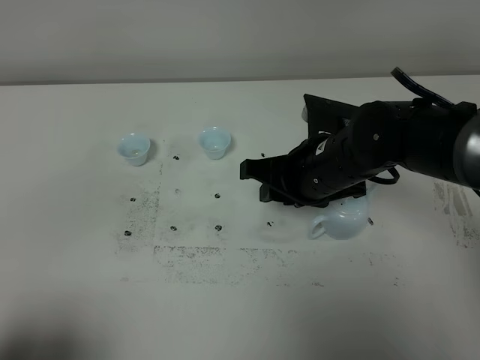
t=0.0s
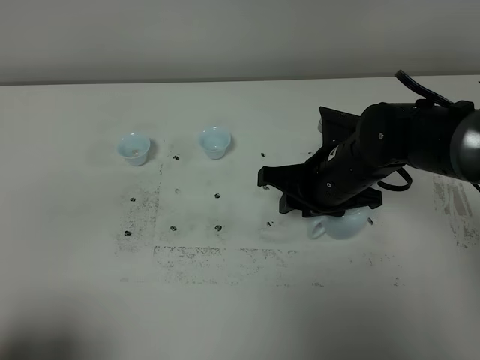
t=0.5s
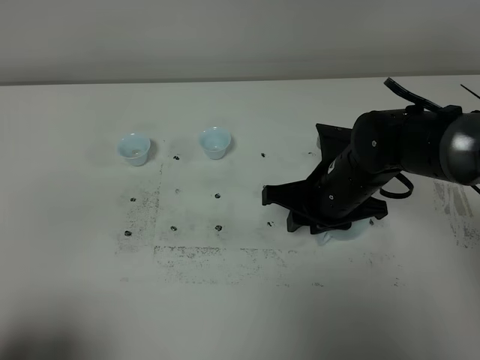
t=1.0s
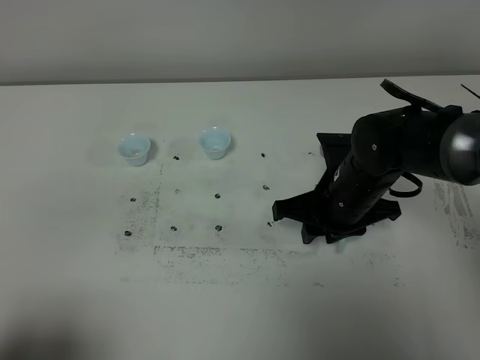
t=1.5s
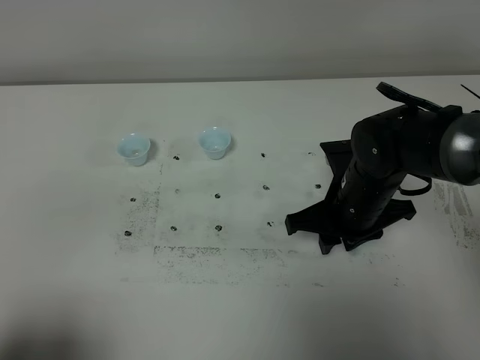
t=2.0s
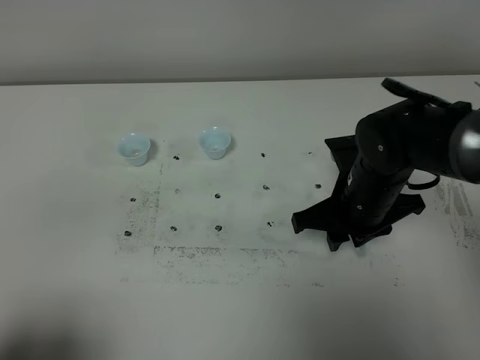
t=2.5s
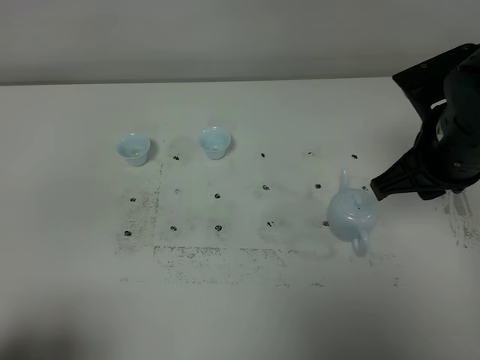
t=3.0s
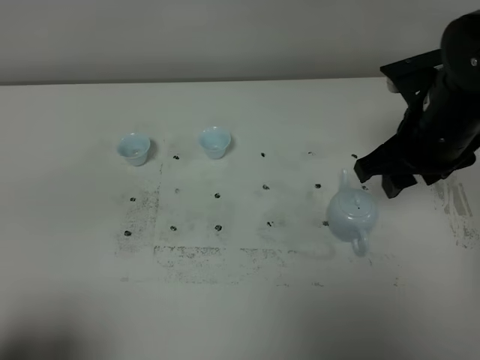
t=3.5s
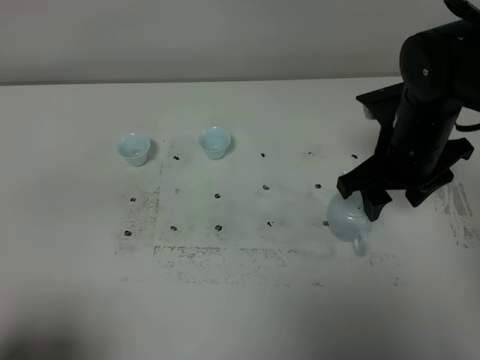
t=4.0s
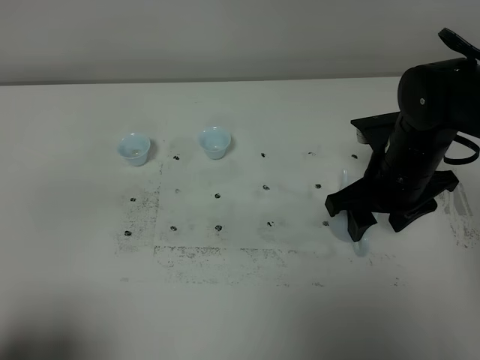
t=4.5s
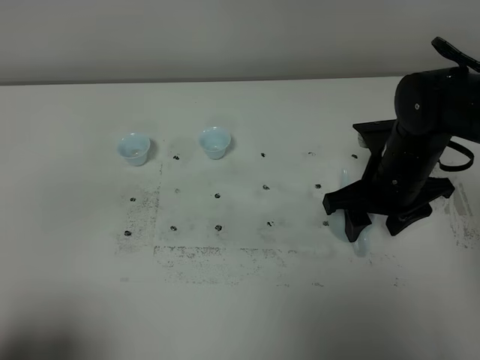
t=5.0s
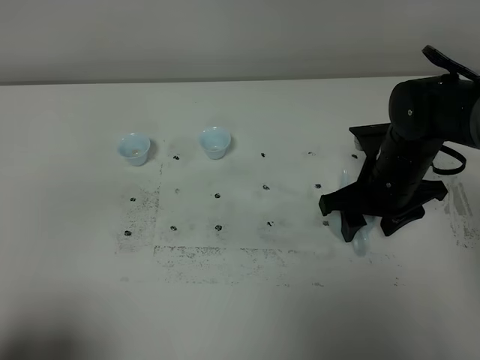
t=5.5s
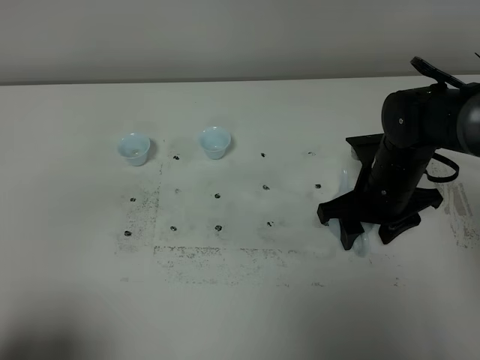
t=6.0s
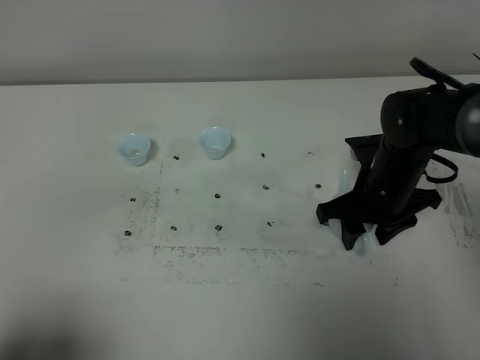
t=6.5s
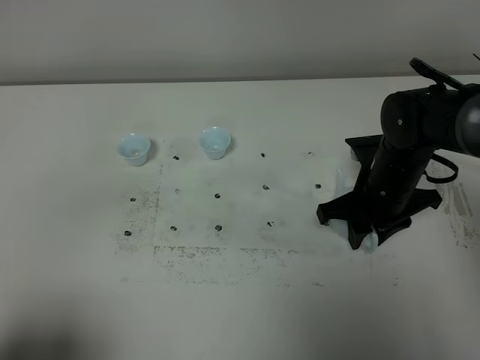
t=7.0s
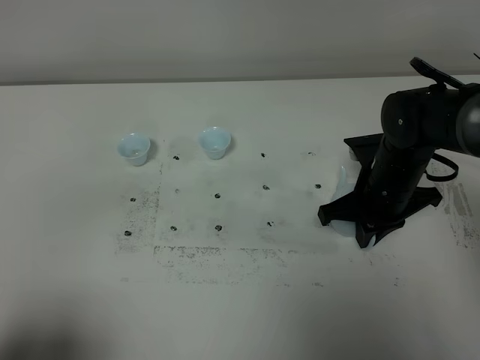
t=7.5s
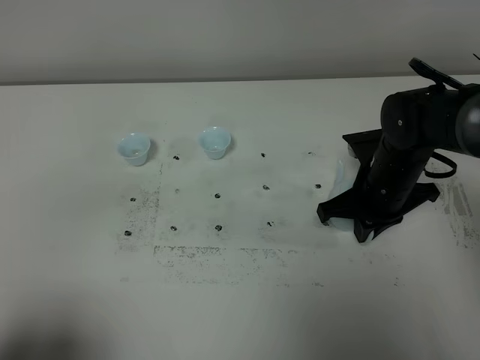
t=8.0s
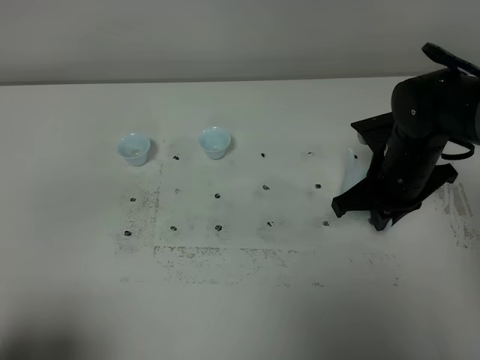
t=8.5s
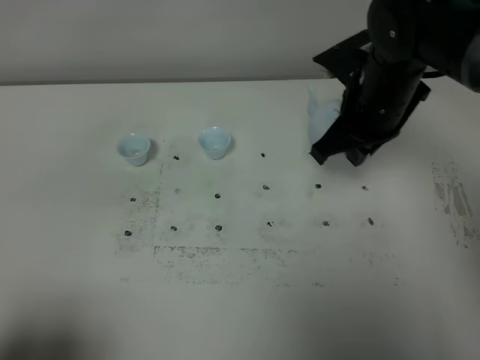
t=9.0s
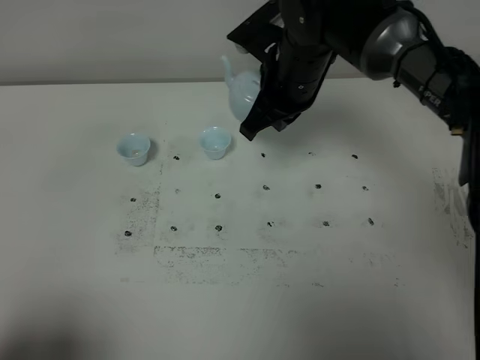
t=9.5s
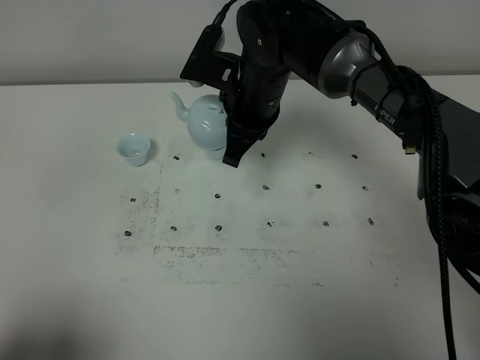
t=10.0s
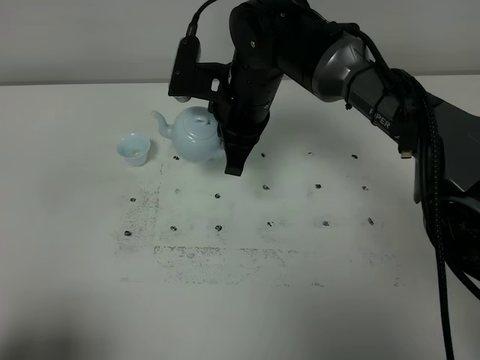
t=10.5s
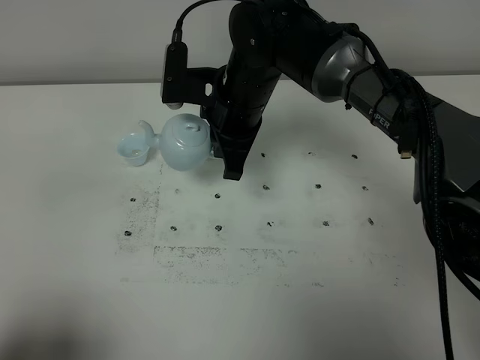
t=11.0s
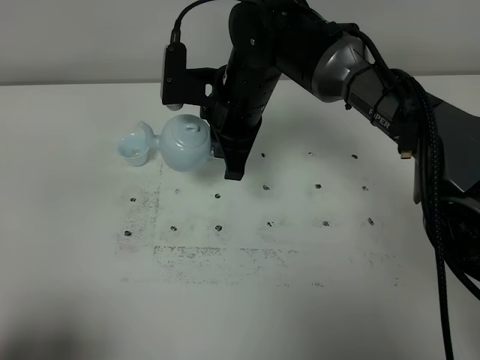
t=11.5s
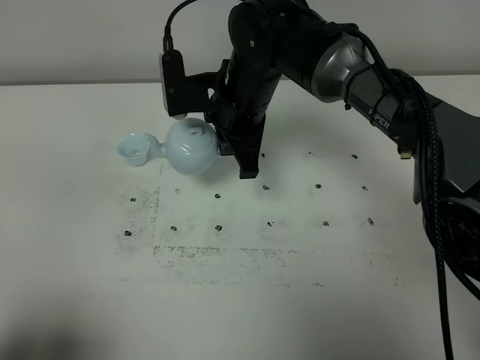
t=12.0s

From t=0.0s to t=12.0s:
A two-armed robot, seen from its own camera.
Task of the whole recording: grasp the blue porcelain teapot and pour the tea into the two blue porcelain teacups one by one, put the blue porcelain teapot back in its original place.
Step, from t=0.0s to t=8.0s: Pick up the teapot with the right gripper.
From t=0.0s to t=2.0s: The right gripper ends up some 5 cm from where it was.
From t=2.0s to t=4.0s: The right gripper heads upward and to the right, covering roughly 10 cm, and opens its fingers.
From t=4.0s to t=6.0s: The right gripper shifts roughly 10 cm downward.
From t=6.0s to t=8.0s: The right gripper closes.
From t=8.0s to t=10.0s: The right gripper goes roughly 20 cm to the left, upward and forward.

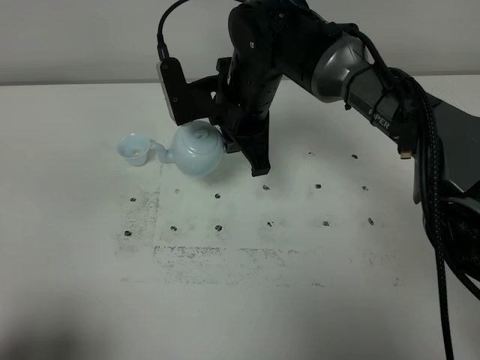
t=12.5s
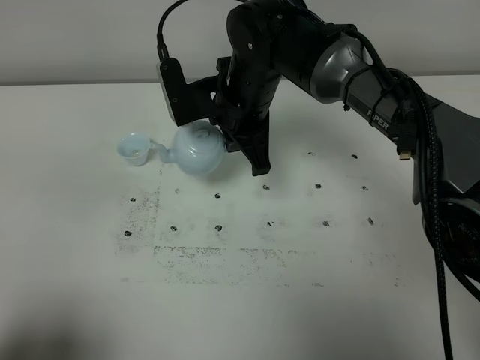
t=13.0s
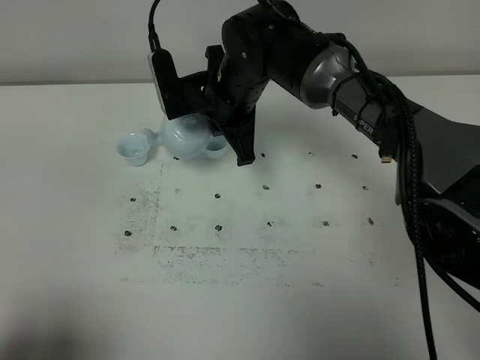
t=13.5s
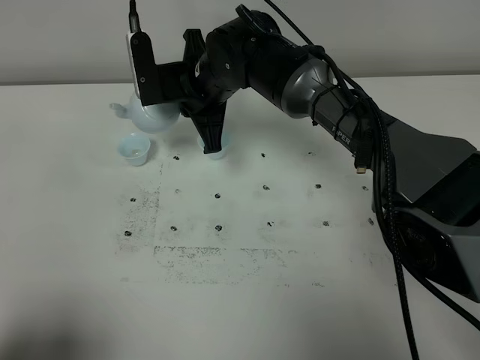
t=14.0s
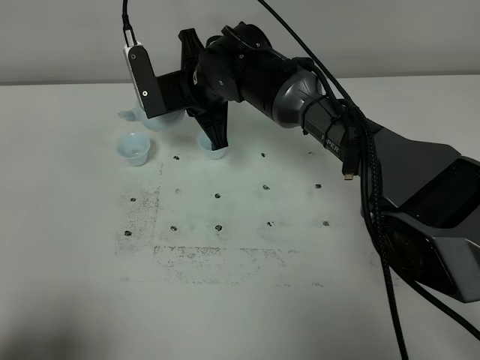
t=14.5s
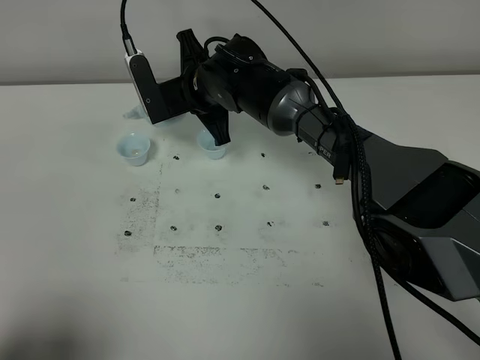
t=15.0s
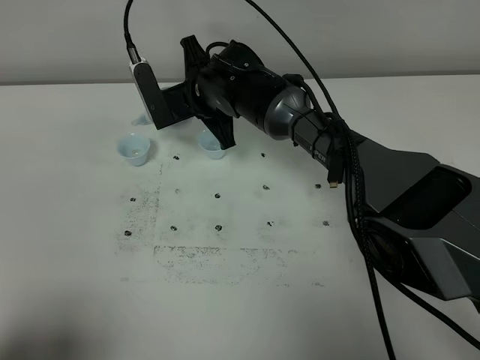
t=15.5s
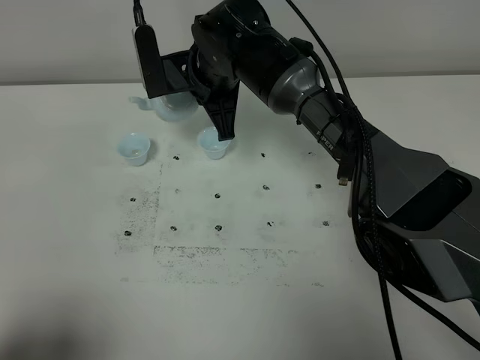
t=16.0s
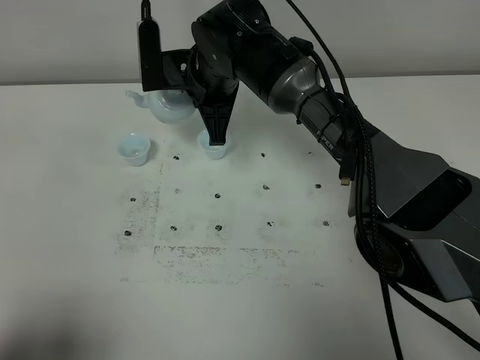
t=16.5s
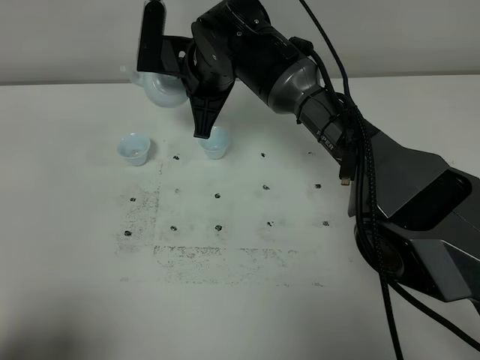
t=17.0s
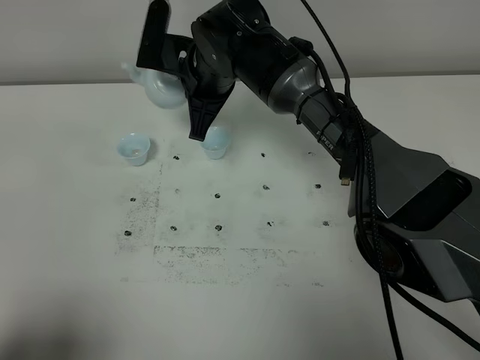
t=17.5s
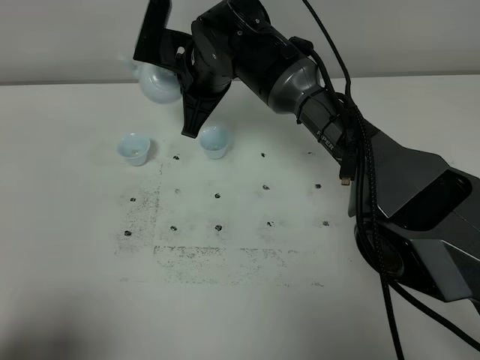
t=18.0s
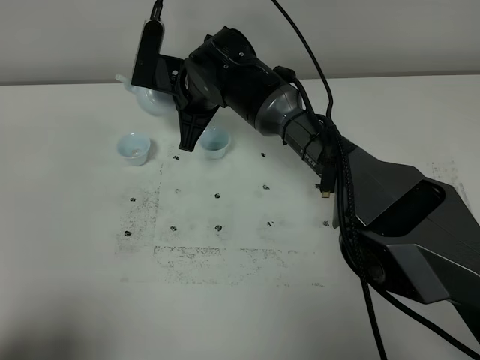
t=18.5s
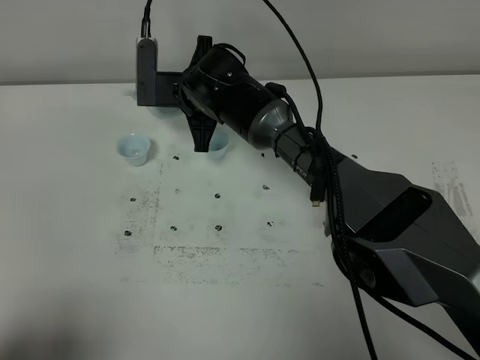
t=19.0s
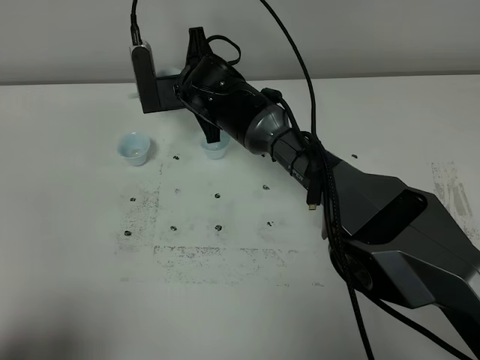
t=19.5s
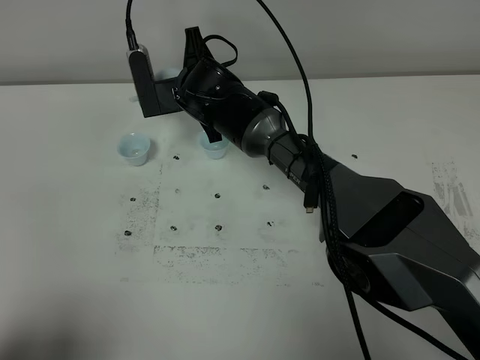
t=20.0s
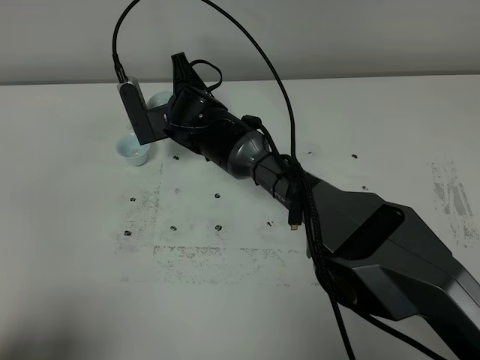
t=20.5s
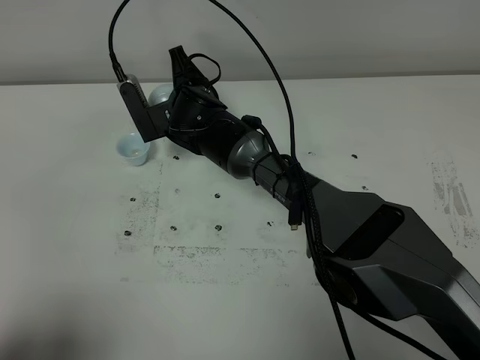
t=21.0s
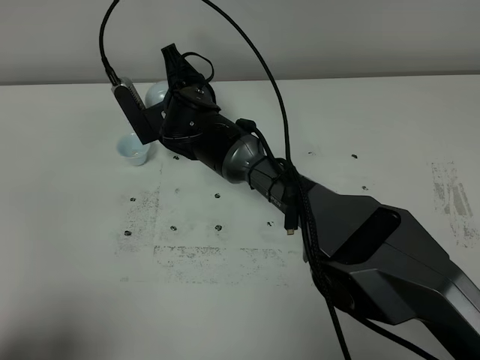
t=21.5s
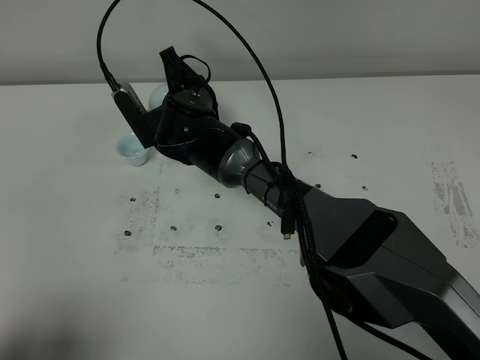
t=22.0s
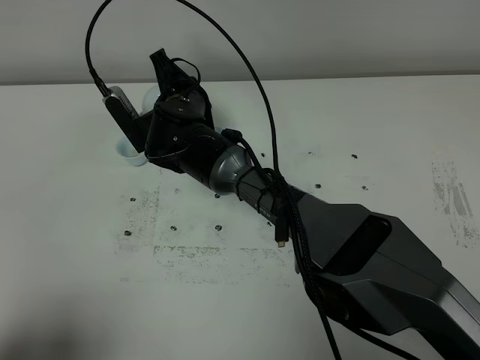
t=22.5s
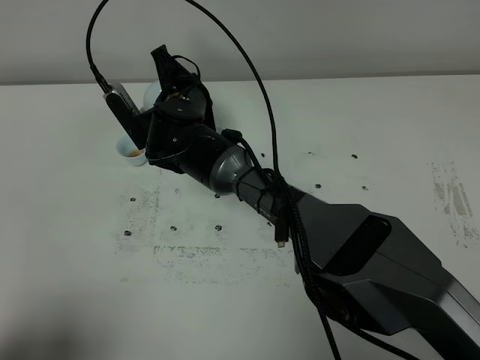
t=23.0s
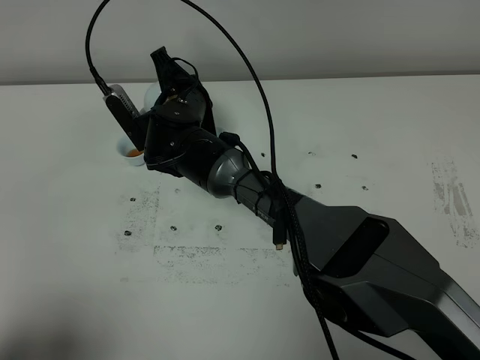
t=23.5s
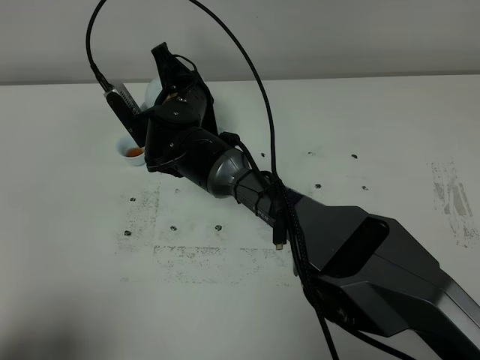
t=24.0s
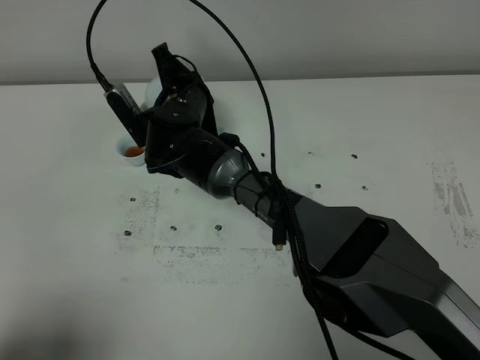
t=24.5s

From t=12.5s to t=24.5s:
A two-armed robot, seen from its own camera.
Task of the whole recording: grasp the blue porcelain teapot and pour the tea into the two blue porcelain teacups one by one, put the blue porcelain teapot back in its original place.
From t=12.5s to t=14.5s: The right gripper changes place by some 5 cm.
From t=14.5s to t=16.5s: The grippers move only a little.
From t=18.5s to t=20.5s: The right gripper goes roughly 5 cm downward.
From t=20.5s to t=24.5s: There are only small adjustments of the grippers.

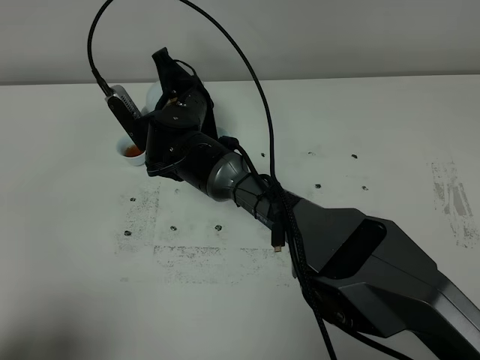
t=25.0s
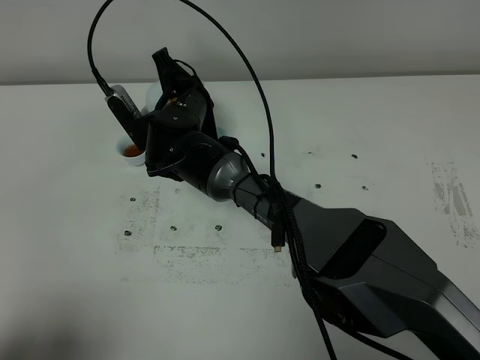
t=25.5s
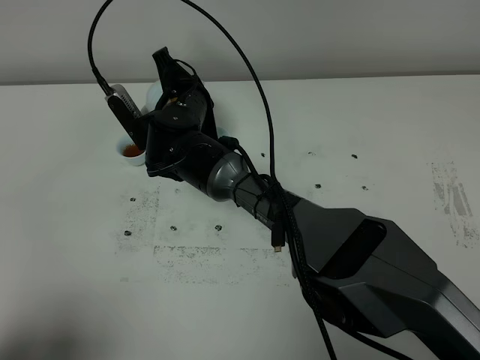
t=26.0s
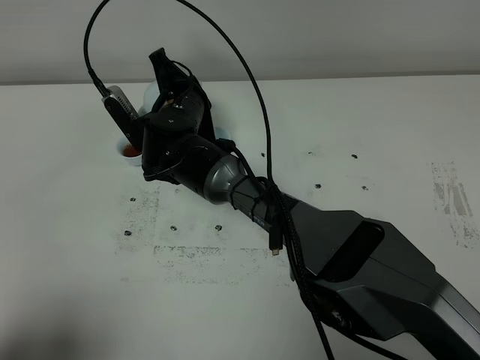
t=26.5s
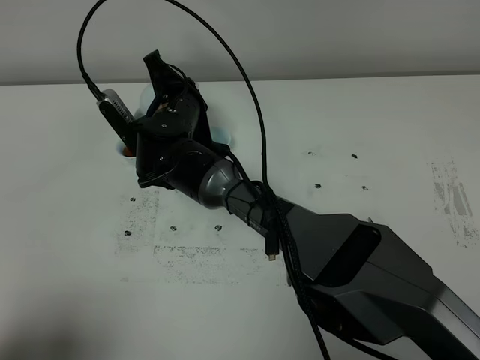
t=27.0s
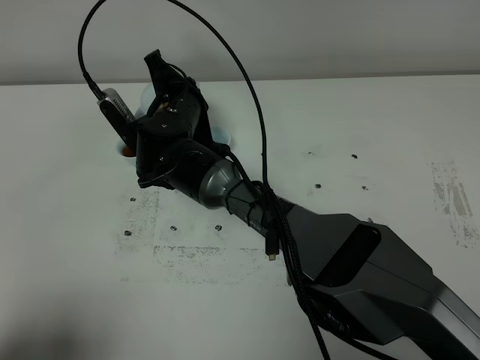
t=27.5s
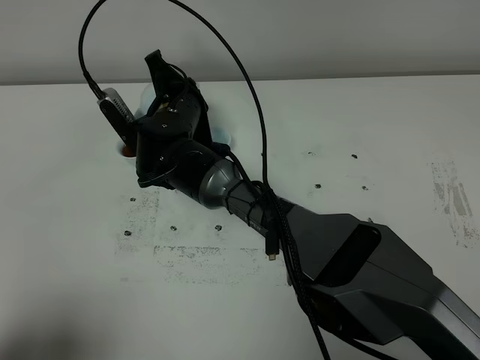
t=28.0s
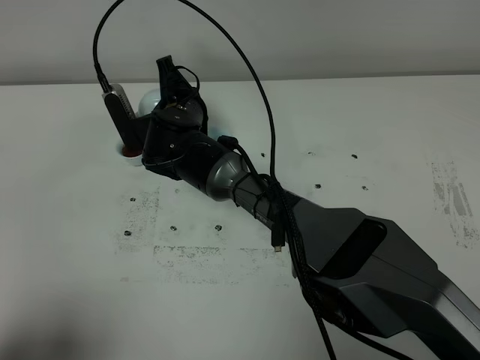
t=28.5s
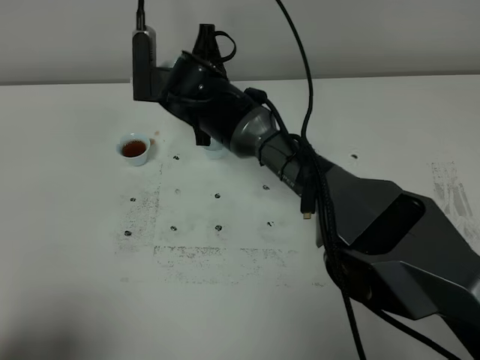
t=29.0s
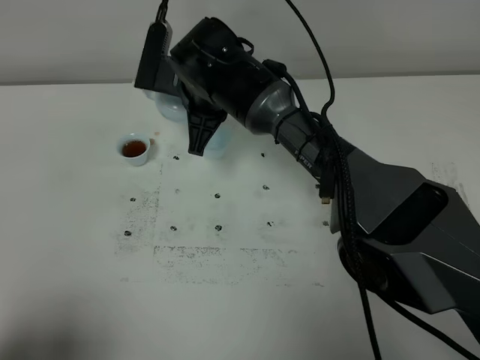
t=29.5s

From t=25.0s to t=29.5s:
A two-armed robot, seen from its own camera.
Task of the whole recording: grasp the blue porcelain teapot and pour the tea into the two blue porcelain teacups one by one, put the blue porcelain teapot back in its original place.
From t=25.0s to t=27.0s: Both grippers stay about where they are.
From t=27.0s to t=29.5s: The right gripper shifts roughly 5 cm upward.
